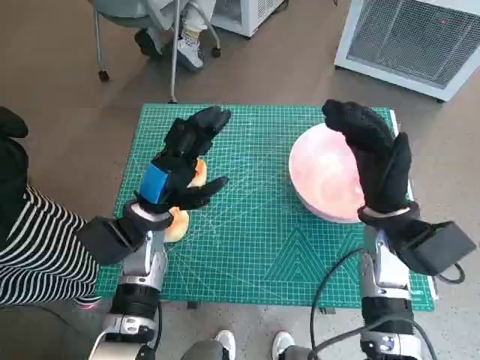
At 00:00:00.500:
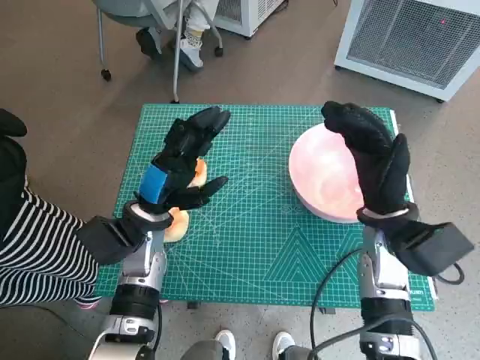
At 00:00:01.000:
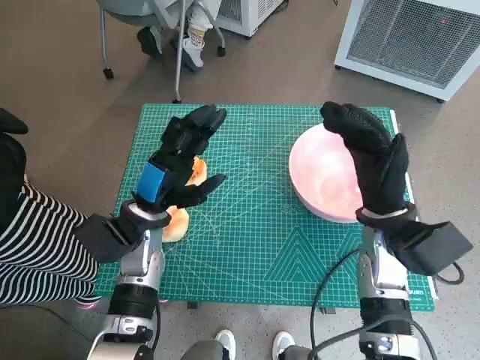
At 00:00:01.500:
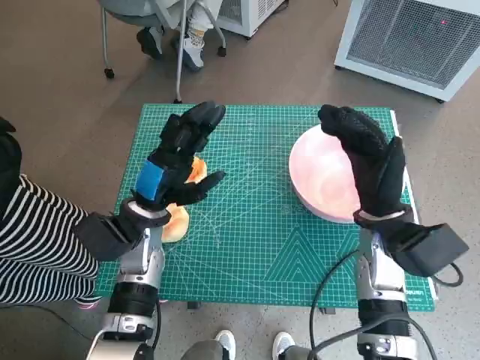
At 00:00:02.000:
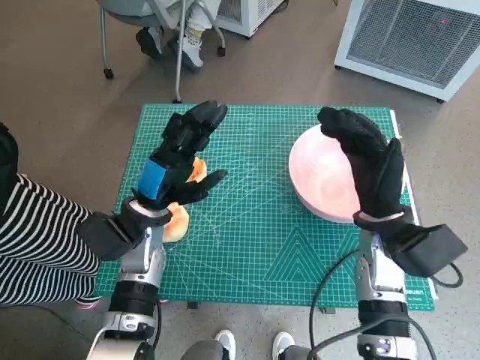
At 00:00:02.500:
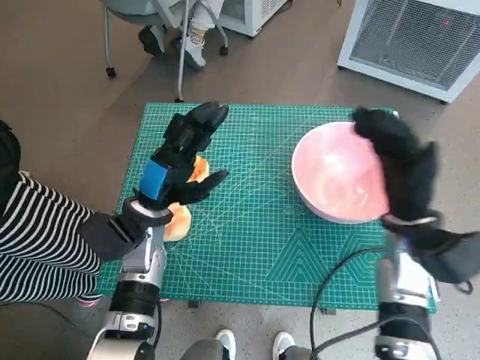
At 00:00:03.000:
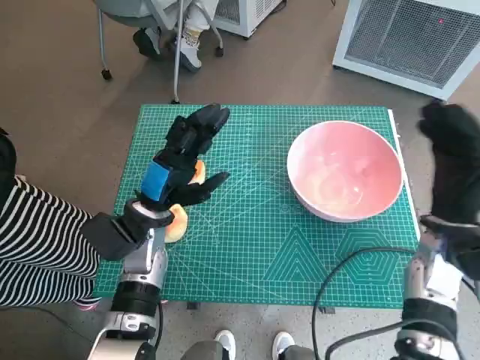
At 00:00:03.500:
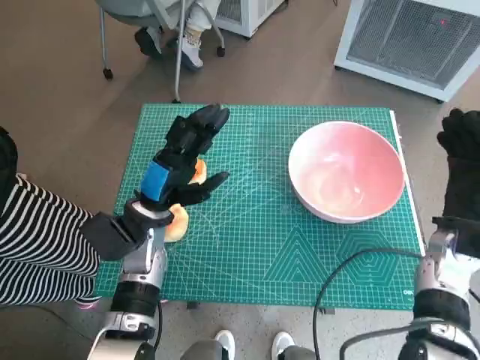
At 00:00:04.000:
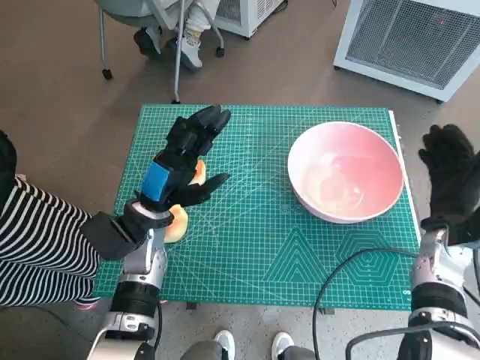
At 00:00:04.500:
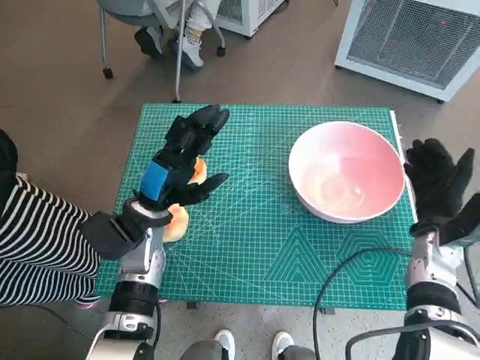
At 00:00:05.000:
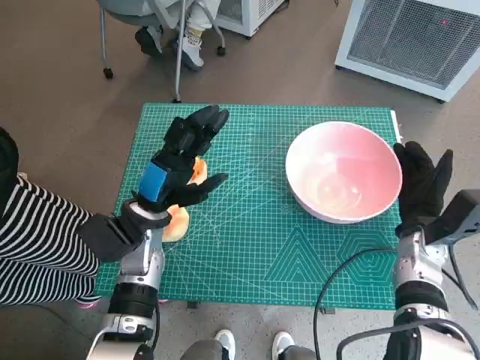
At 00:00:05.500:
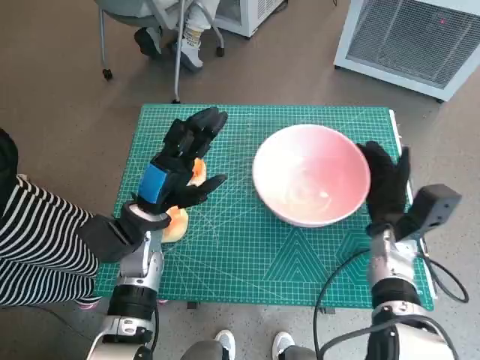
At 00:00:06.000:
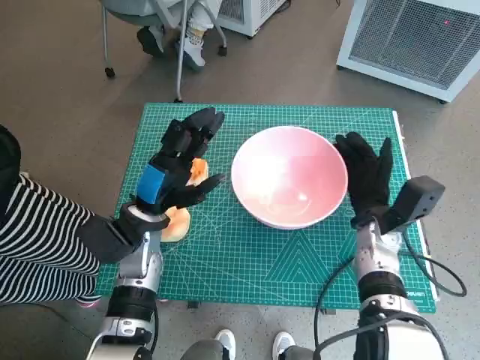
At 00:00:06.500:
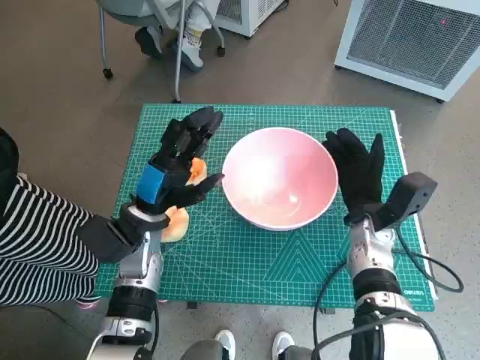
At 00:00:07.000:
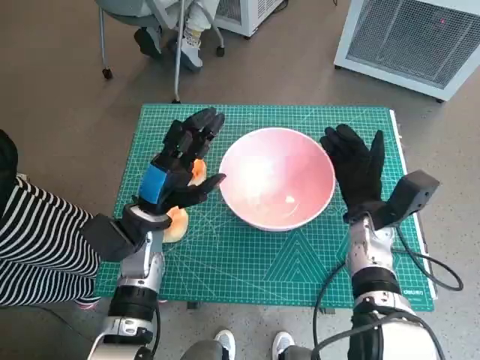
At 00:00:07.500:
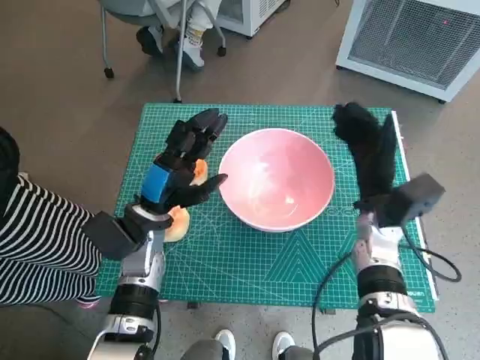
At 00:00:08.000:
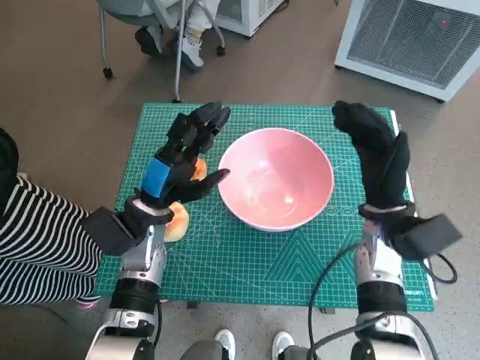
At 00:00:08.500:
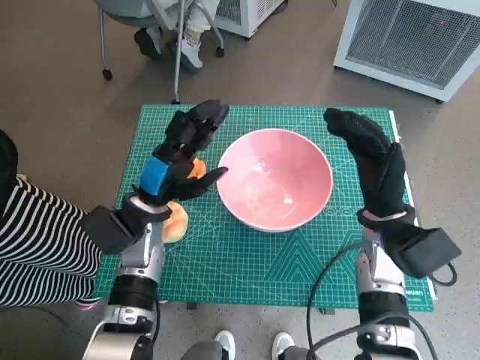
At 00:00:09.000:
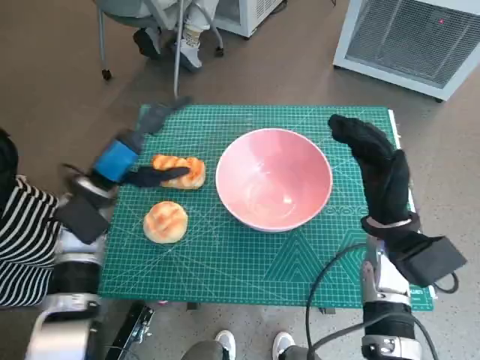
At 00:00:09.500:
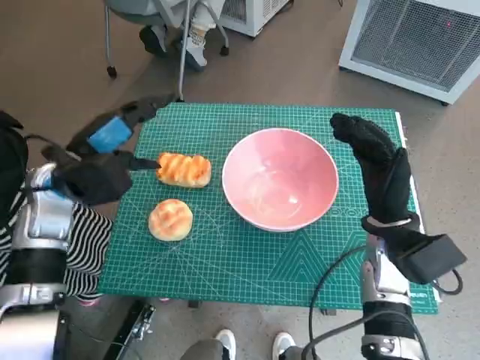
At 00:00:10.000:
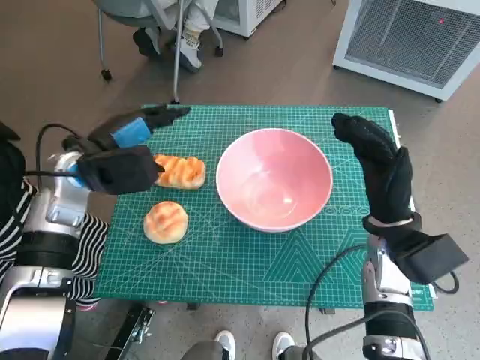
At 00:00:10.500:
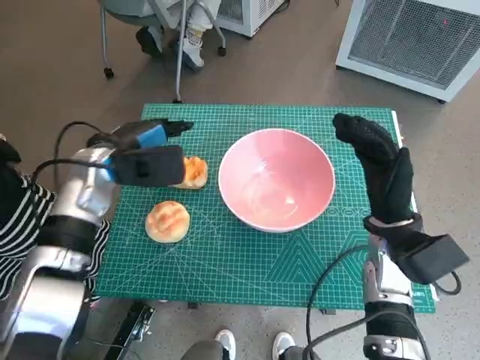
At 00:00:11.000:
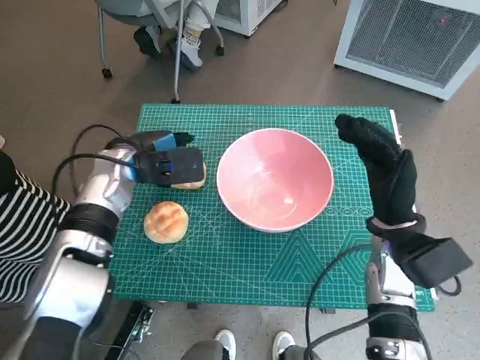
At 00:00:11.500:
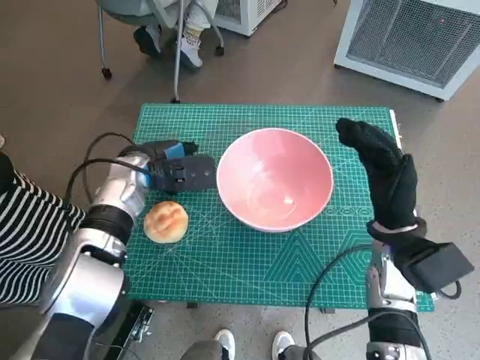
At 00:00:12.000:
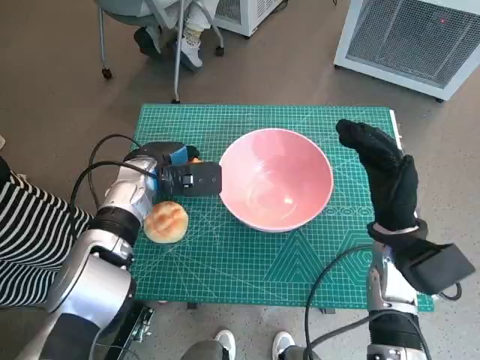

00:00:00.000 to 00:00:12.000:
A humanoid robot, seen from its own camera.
Task of the whole recording: Push the bowl into the center of the table and put the bread into the bowl.
Step, 00:00:00.000 to 00:00:07.000: Move the pink bowl to the center of table with right hand.
00:00:02.000 to 00:00:04.000: The right hand shifts some 10 cm to the right.
00:00:04.000 to 00:00:06.000: The right hand goes about 10 cm to the left.
00:00:06.000 to 00:00:08.000: The right hand shifts approximately 5 cm upward.
00:00:08.000 to 00:00:10.000: The left hand travels upward and to the left by roughly 10 cm.
00:00:10.000 to 00:00:12.000: The left hand shifts roughly 10 cm downward and to the right.

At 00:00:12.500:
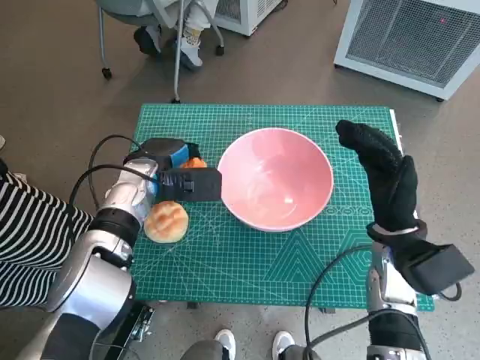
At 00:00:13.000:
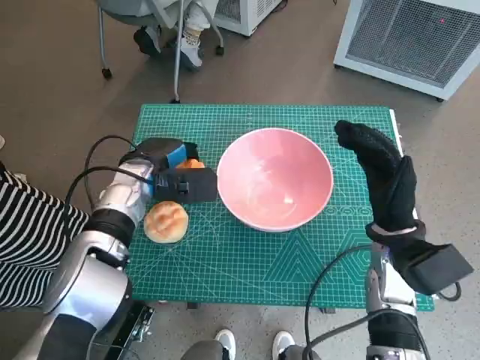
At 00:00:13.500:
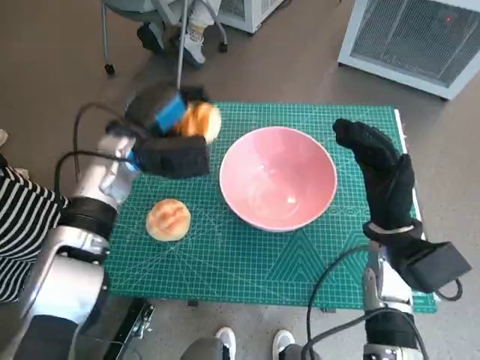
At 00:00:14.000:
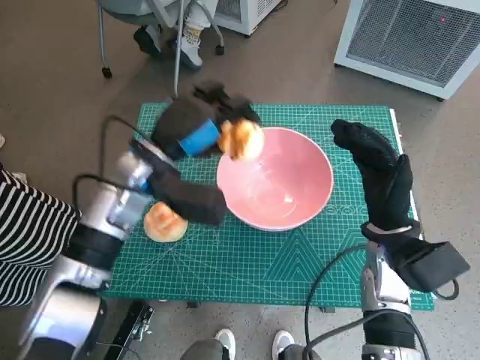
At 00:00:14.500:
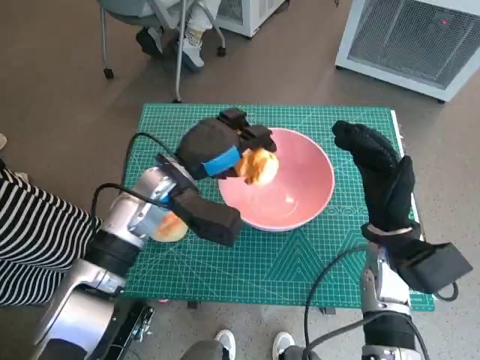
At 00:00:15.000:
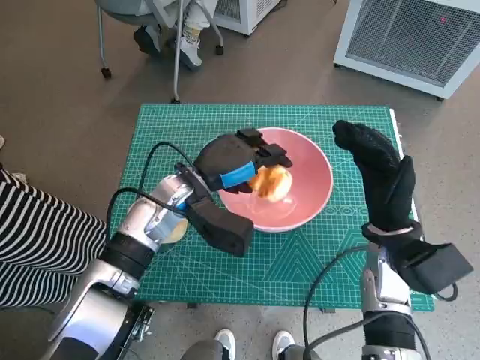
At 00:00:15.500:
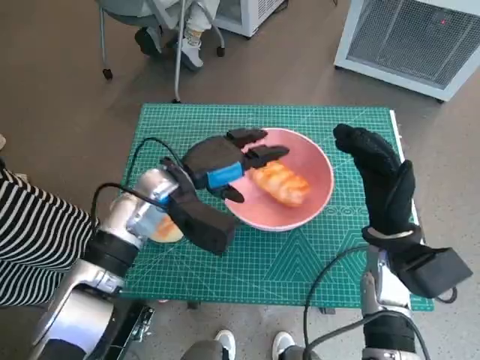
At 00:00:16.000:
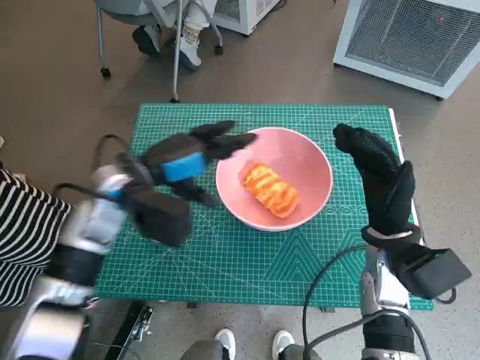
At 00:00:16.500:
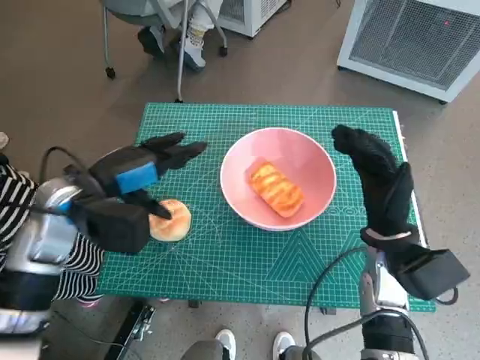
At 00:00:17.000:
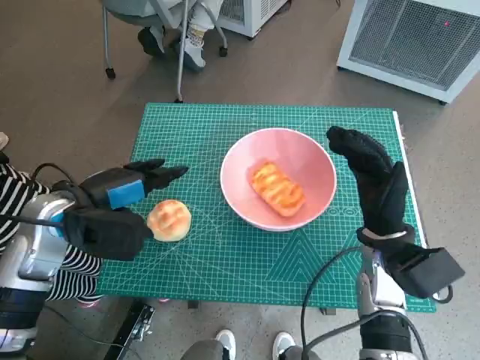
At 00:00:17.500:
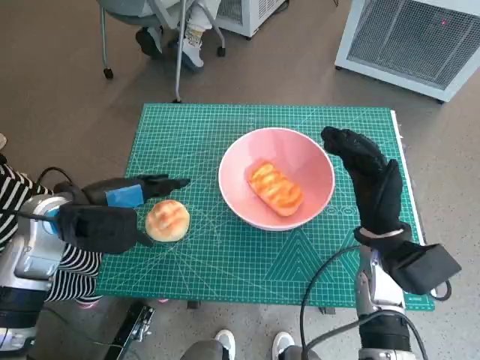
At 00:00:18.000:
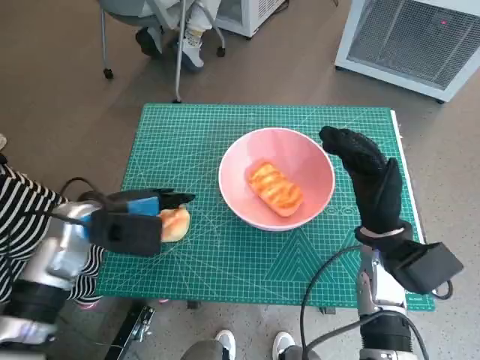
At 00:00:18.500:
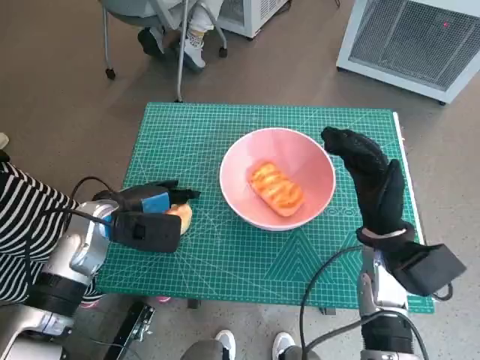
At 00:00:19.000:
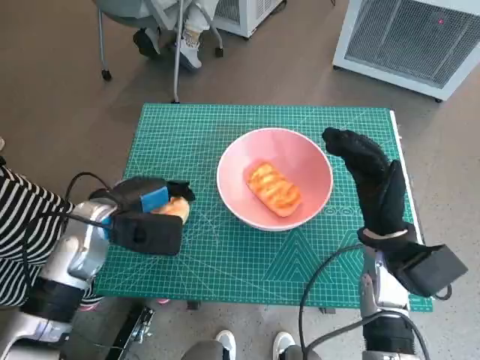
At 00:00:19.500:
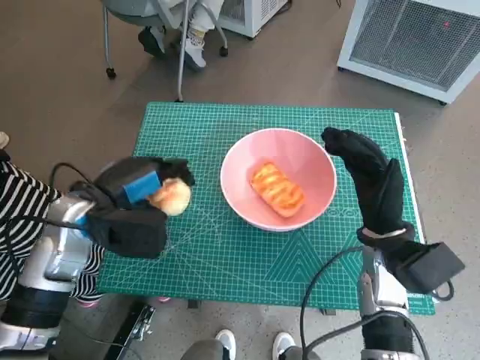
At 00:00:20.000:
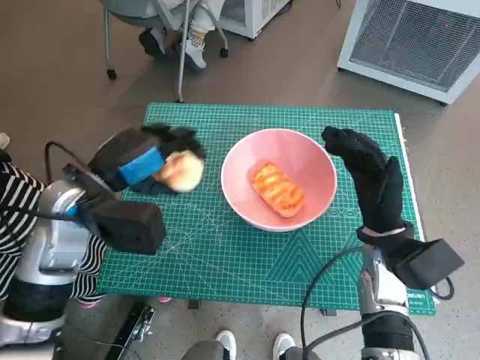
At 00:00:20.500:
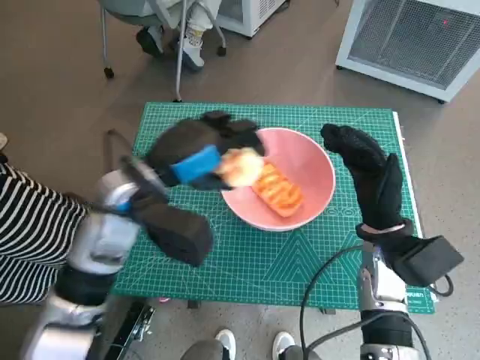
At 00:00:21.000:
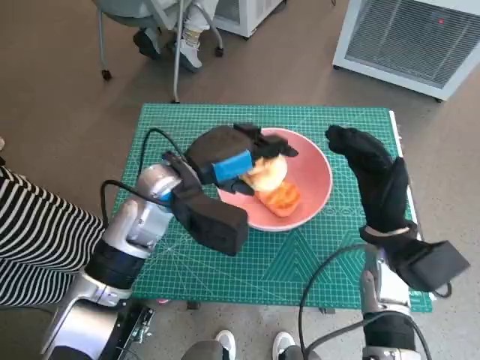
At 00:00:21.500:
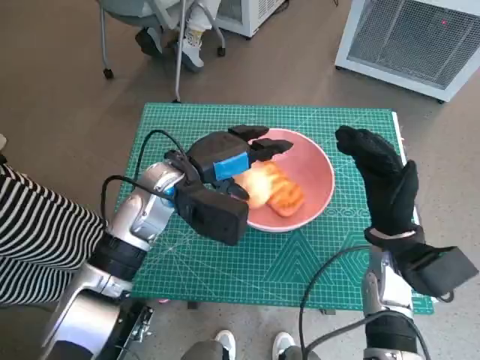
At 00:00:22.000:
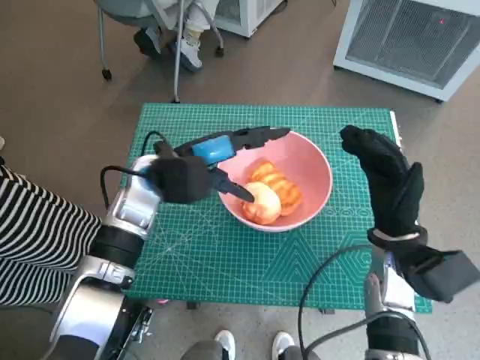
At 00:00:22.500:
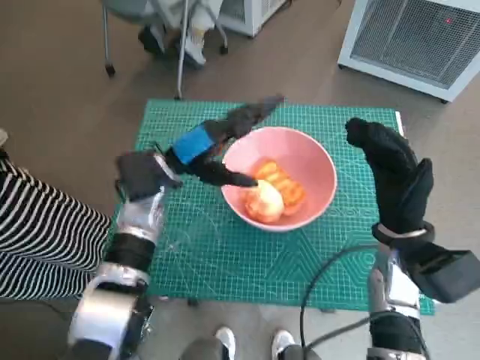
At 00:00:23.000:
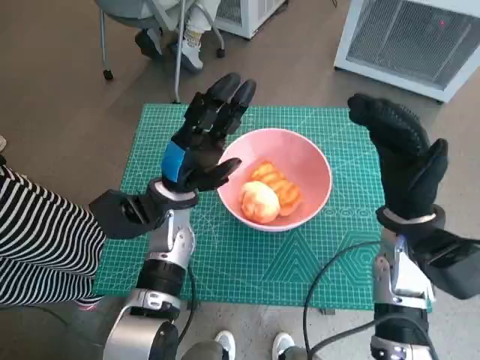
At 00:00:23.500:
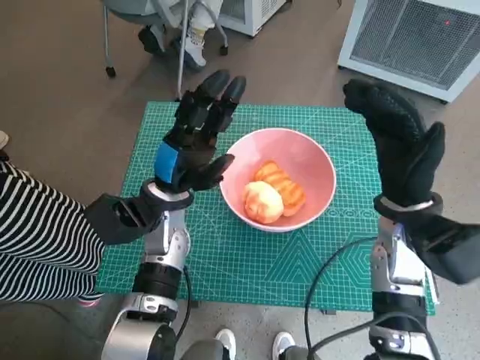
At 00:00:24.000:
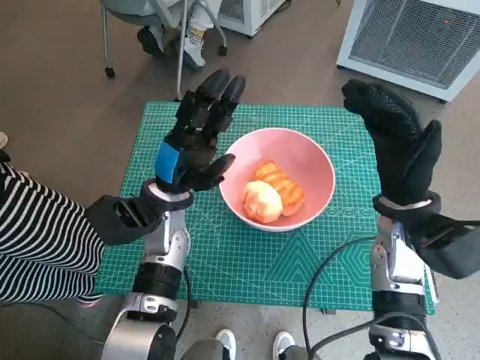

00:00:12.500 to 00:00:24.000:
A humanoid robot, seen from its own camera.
Task of the whole recording: Push the bowl into the center of the table and put the bread into the bowl.
Step, 00:00:12.500 to 00:00:15.500: Place the long bread in pink bowl with left hand.
Step, 00:00:16.000 to 00:00:18.500: Grasp the round bread with left hand.
Step, 00:00:19.000 to 00:00:21.500: Place the round bread in pink bowl with left hand.
00:00:12.500 to 00:00:14.500: The left hand changes place by roughly 5 cm.
00:00:14.500 to 00:00:16.500: The left hand travels to the left by roughly 10 cm.
00:00:16.500 to 00:00:18.500: The left hand moves downward, roughly 5 cm.
00:00:18.500 to 00:00:20.000: The left hand travels upward by about 10 cm.
00:00:20.000 to 00:00:22.000: The left hand shifts some 10 cm to the right and forward.
00:00:22.000 to 00:00:24.000: The left hand changes place by about 5 cm; the right hand moves upward, approximately 5 cm.

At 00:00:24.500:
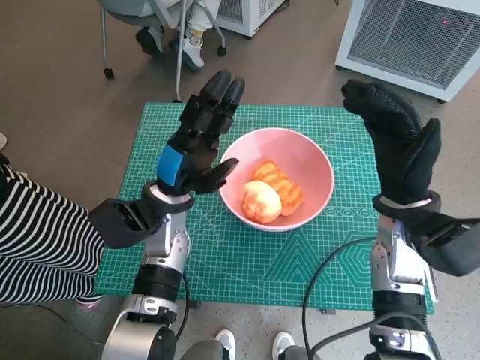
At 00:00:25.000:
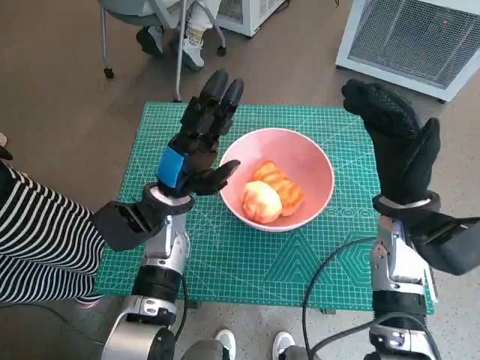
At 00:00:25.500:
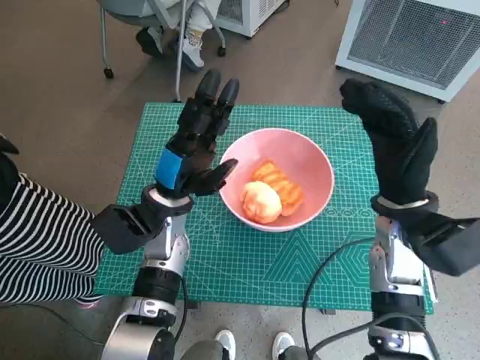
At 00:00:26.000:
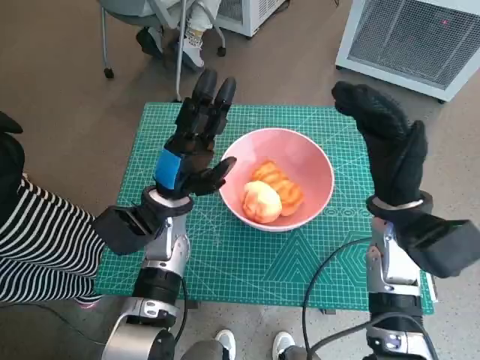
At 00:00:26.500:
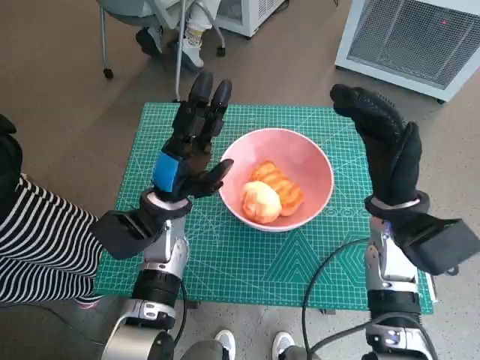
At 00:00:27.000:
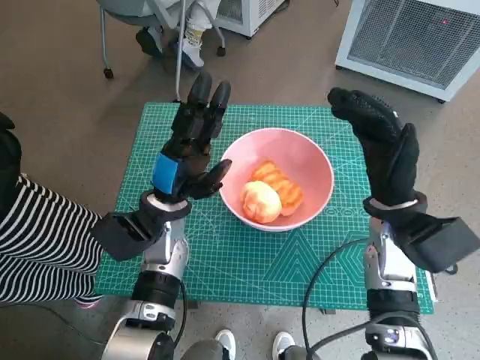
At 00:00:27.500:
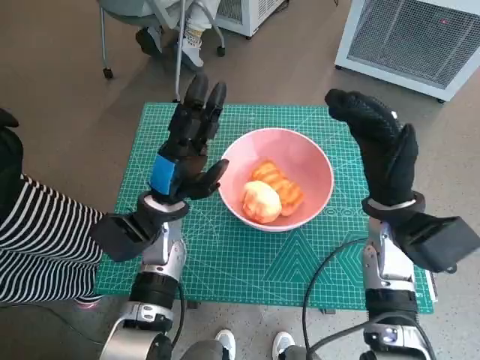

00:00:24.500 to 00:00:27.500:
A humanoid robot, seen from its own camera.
Task of the whole recording: Push the bowl into the center of the table and put the bread into the bowl.
00:00:24.500 to 00:00:26.000: The two hands keep their place.
00:00:26.000 to 00:00:27.500: Both hands stay put.
